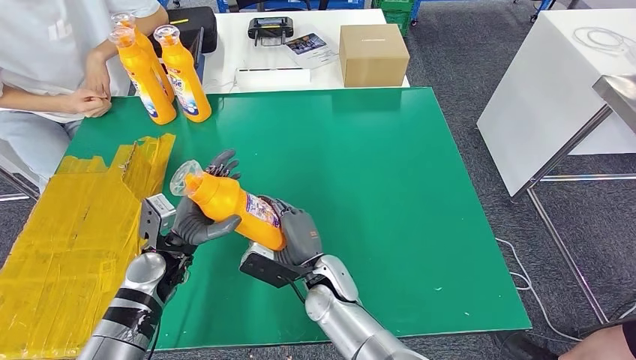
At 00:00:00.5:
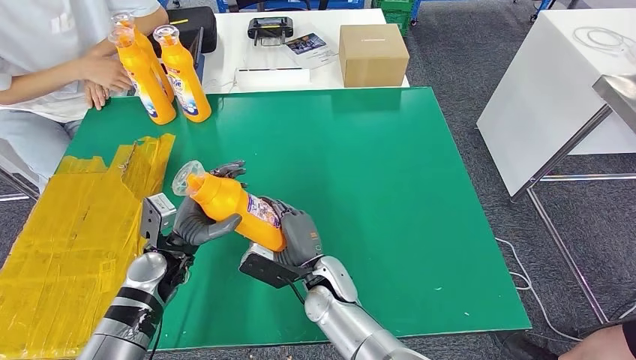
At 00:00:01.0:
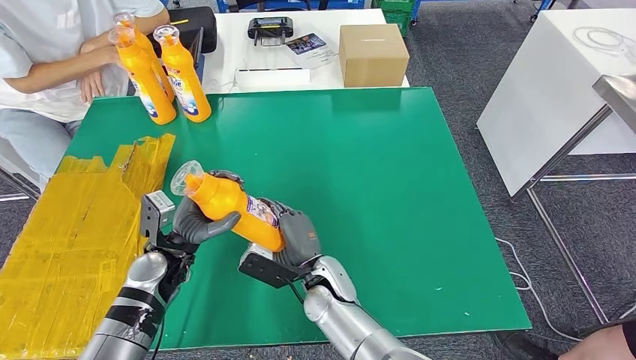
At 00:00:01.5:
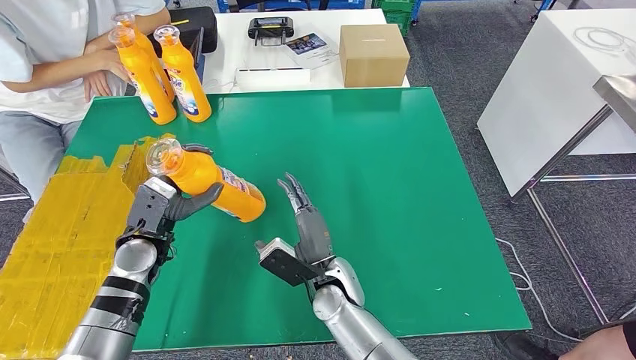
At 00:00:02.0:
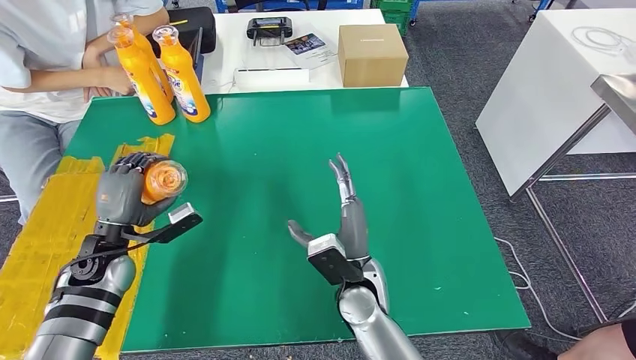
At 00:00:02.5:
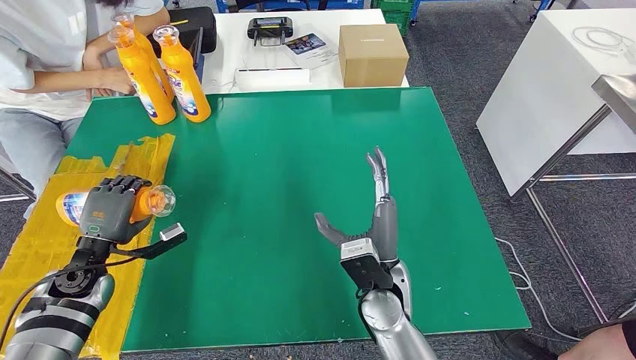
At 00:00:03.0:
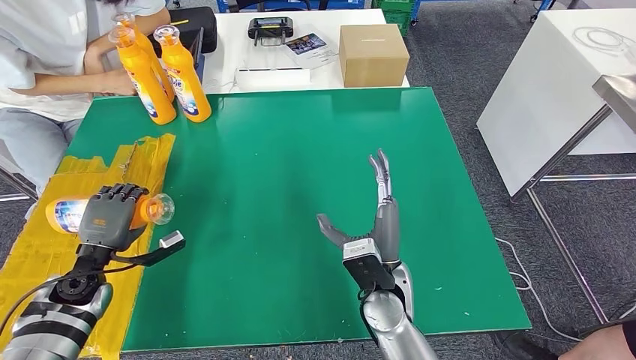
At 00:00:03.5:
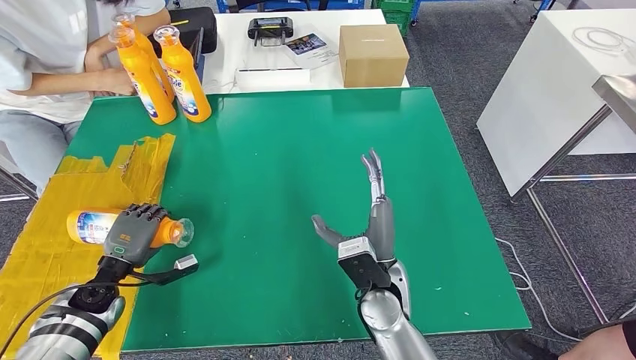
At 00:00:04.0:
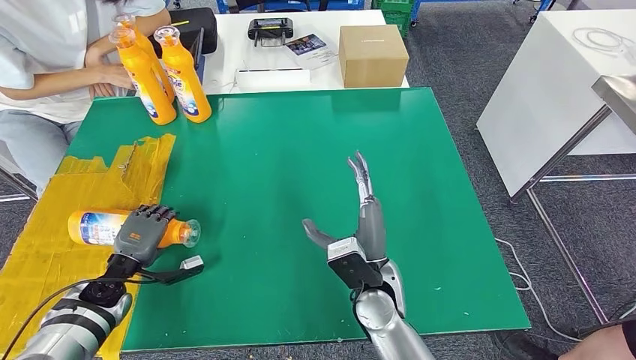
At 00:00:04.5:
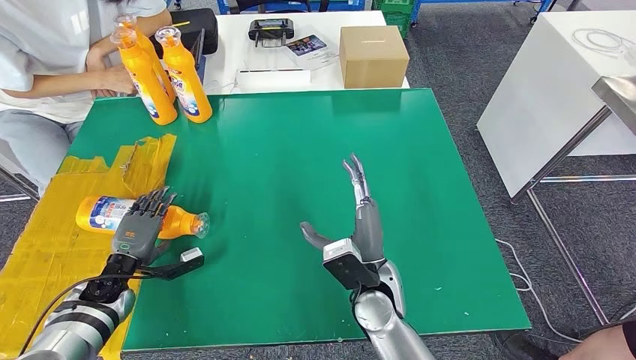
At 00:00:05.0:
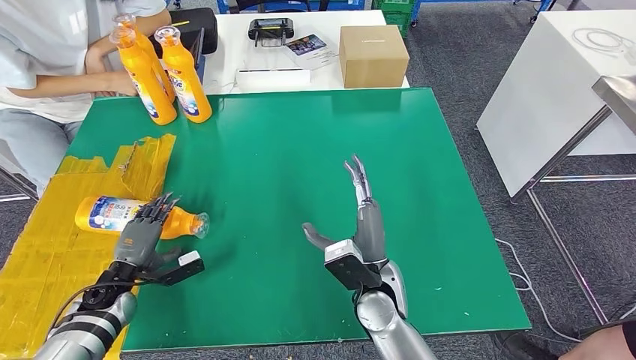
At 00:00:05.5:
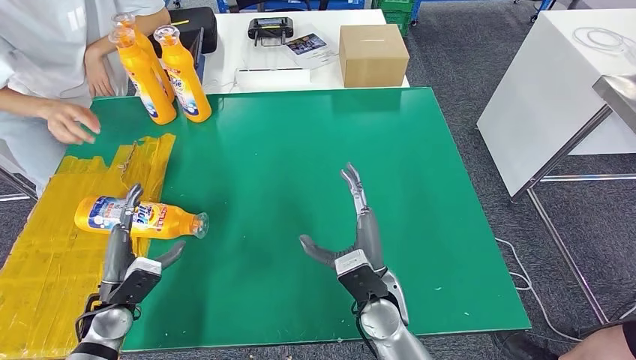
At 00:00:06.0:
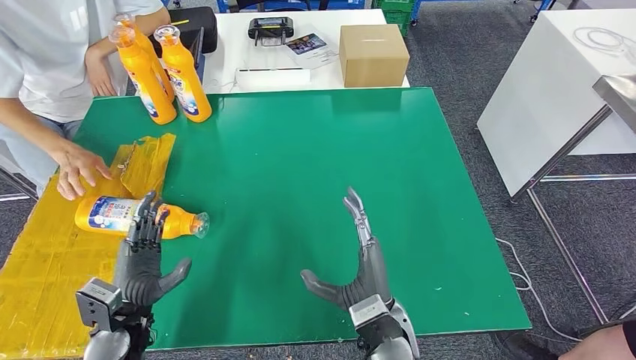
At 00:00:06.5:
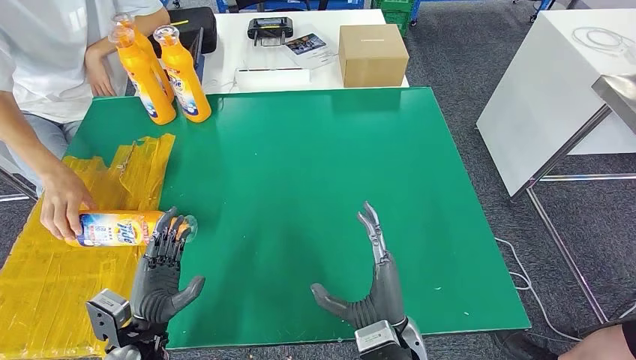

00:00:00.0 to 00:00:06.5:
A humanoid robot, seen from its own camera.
Step, 00:00:00.0 to 00:00:06.5: Flip the fast-moving consumer goods bottle to the front side.
00:00:02.0 to 00:00:04.5: The left hand travels downward by approximately 10 cm.
00:00:04.5 to 00:00:06.5: The right hand goes roughly 10 cm backward; the left hand goes about 15 cm backward and to the right.
